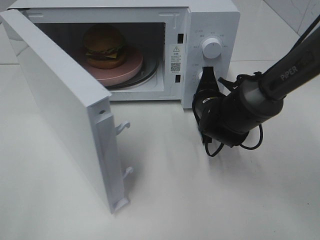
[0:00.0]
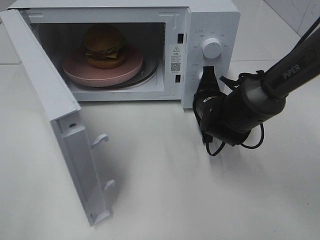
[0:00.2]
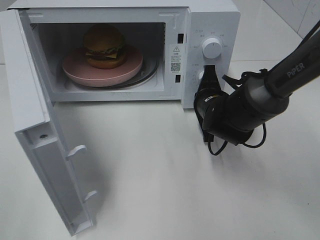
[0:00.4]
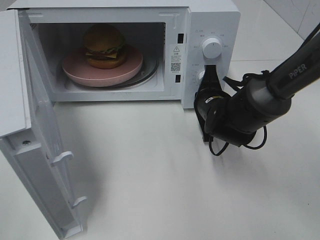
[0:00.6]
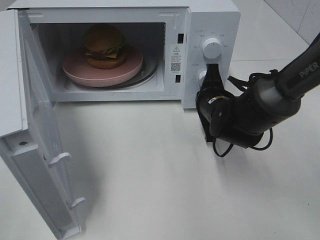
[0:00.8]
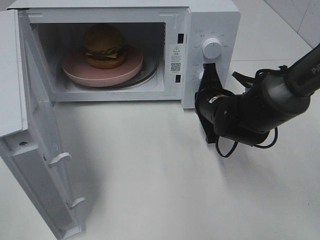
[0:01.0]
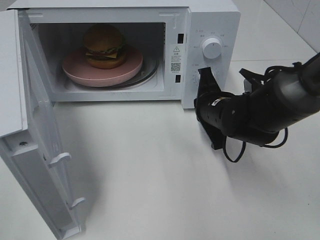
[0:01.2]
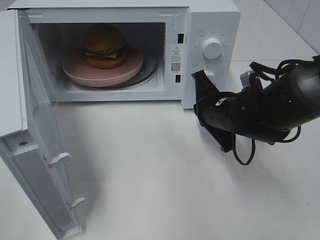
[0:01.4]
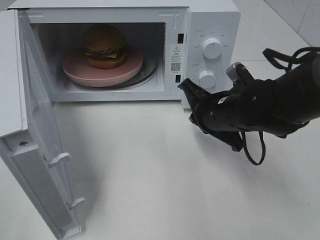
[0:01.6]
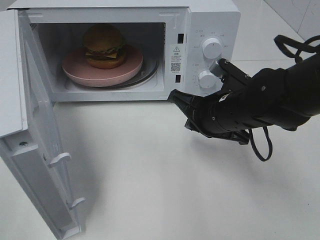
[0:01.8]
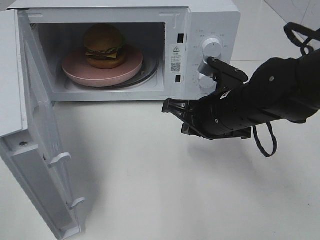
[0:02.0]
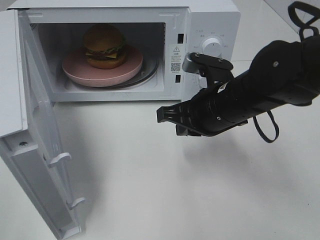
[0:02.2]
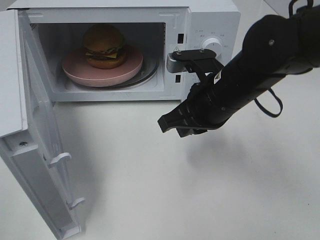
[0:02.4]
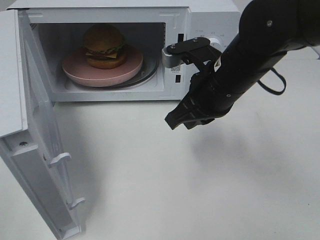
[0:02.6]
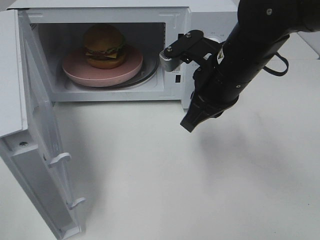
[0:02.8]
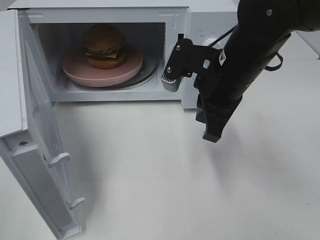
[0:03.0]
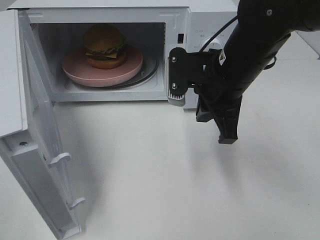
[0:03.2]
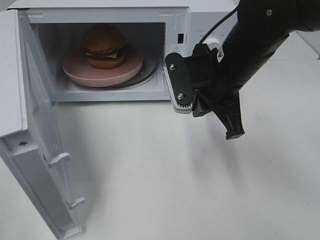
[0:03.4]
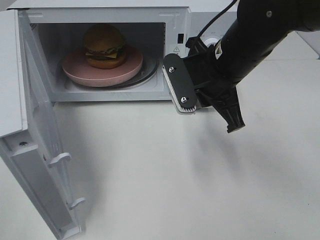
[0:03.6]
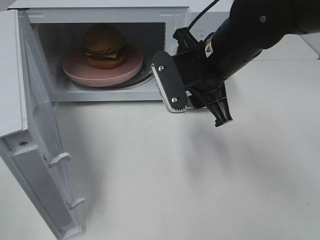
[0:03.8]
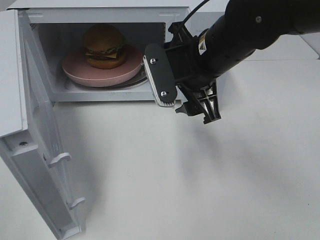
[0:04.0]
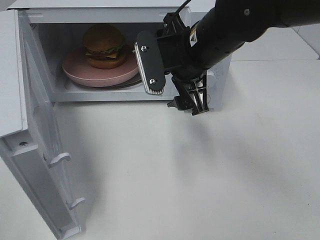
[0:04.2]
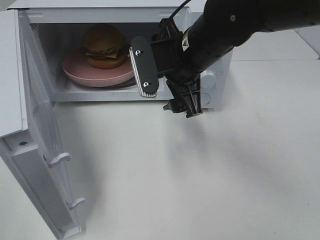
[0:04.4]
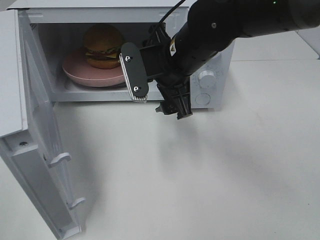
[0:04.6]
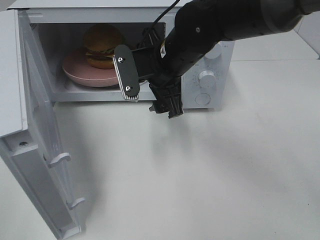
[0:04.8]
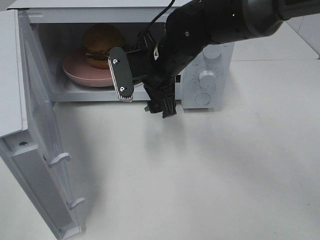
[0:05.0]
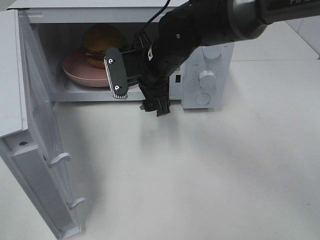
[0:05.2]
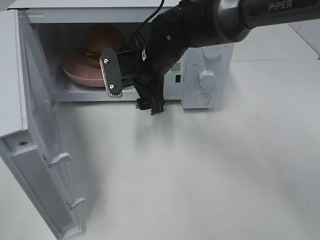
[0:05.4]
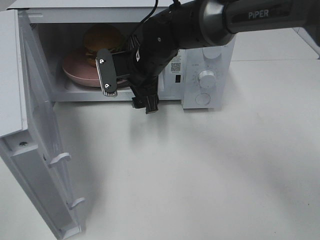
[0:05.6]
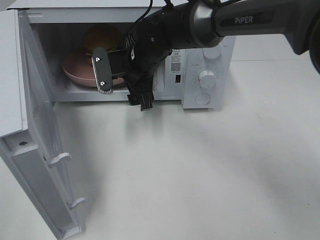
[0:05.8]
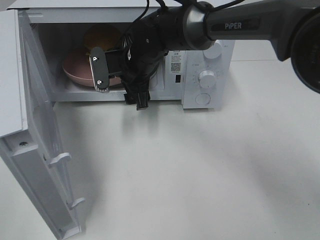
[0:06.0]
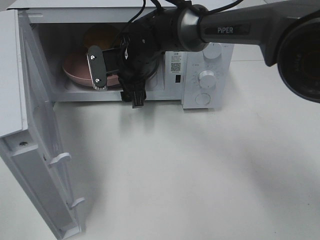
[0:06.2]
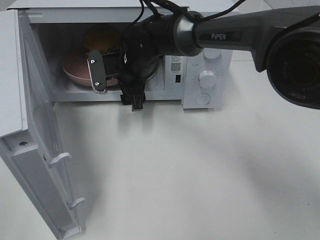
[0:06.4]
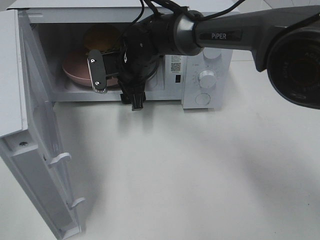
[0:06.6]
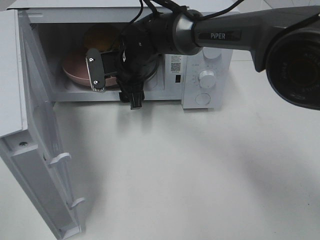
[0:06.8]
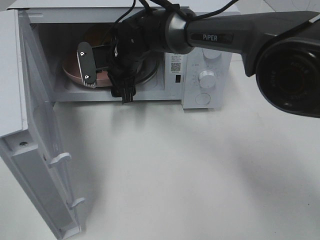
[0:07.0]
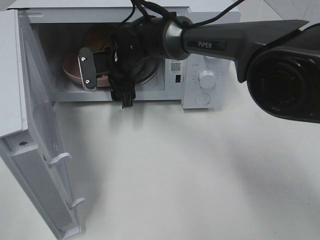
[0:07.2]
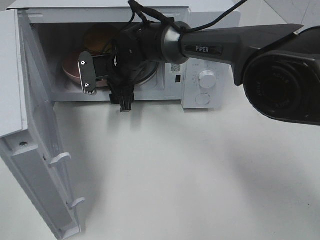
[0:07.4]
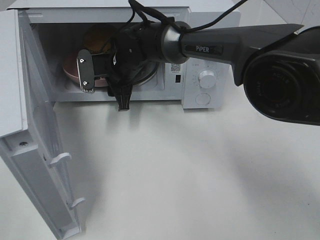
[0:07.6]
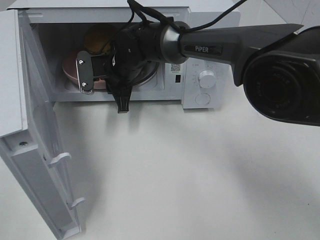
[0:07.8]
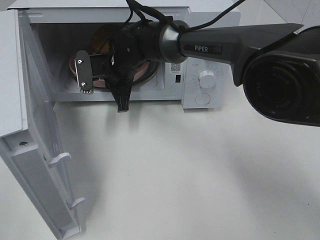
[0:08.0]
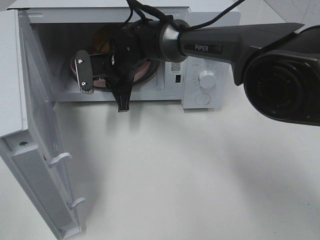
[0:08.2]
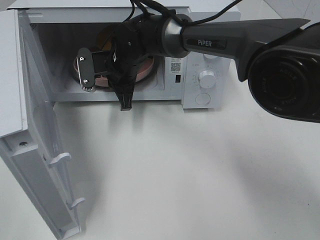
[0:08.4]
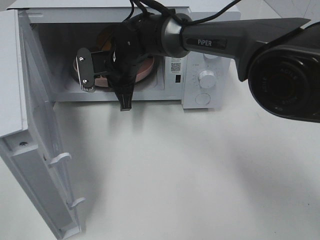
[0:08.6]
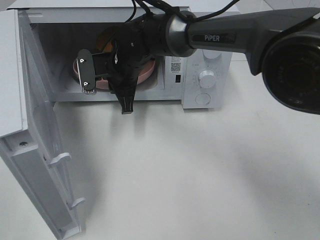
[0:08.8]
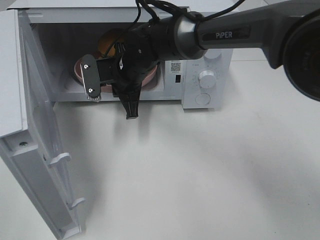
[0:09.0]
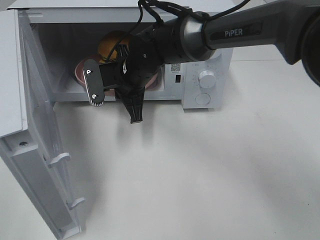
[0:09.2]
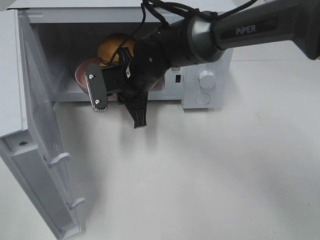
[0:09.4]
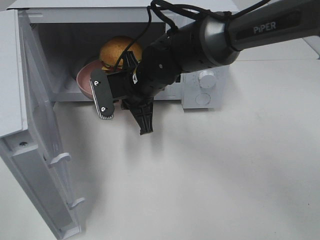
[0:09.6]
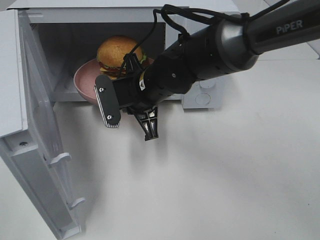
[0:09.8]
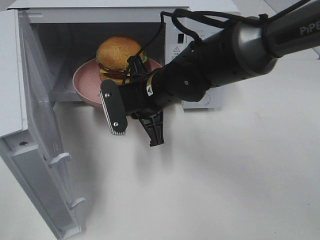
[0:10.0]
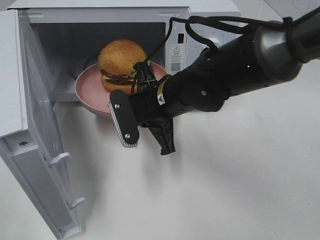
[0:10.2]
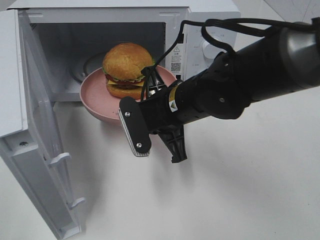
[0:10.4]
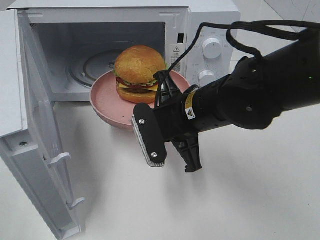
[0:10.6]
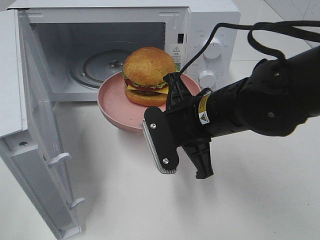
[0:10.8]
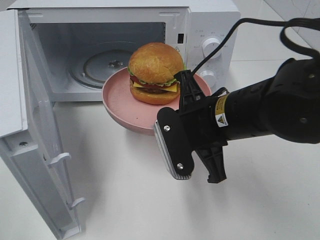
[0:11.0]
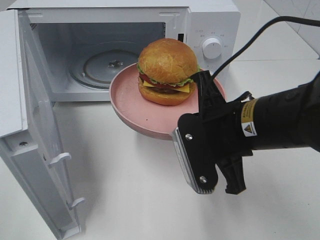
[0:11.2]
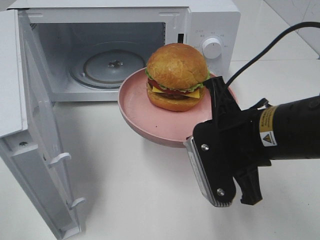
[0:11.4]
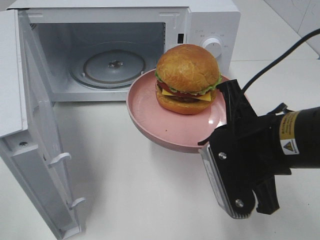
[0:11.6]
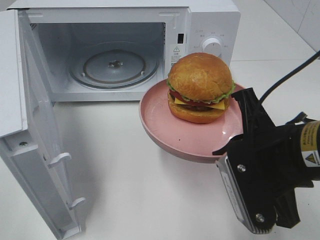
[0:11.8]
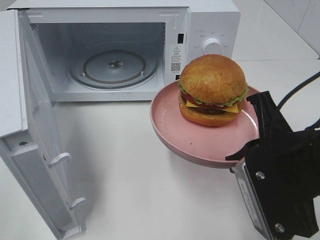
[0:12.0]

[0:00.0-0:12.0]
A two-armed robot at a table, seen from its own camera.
Task of the whole recording: Heat the burger.
Step, 0:01.2 to 0:08.0: Right hand: grab the plate with the hamburger.
0:00.0 to 0:01.6: The right gripper shifts approximately 5 cm backward.
0:01.6 to 0:03.0: The right gripper heads upward, covering approximately 10 cm.
0:03.0 to 0:04.4: The right gripper shifts approximately 5 cm to the left, and opens up.
0:04.4 to 0:06.0: The right gripper heads forward, to the left and downward, covering roughly 15 cm.
0:06.0 to 0:07.6: The right gripper closes.
0:07.6 to 0:09.0: The right gripper closes up.
0:09.0 to 0:10.4: The right gripper moves backward and to the right, approximately 15 cm.
0:10.4 to 0:12.0: The right gripper moves backward and to the right, about 20 cm.

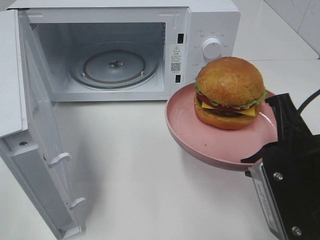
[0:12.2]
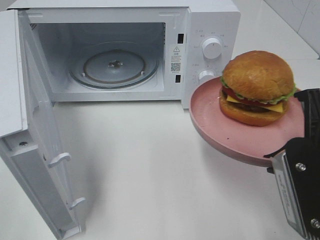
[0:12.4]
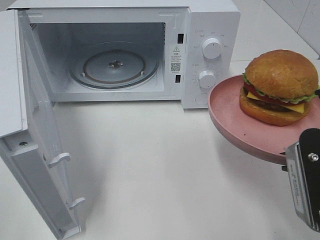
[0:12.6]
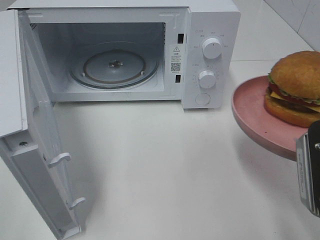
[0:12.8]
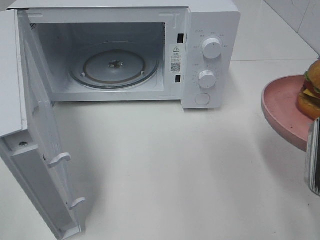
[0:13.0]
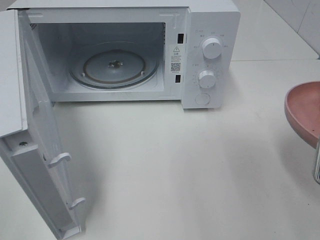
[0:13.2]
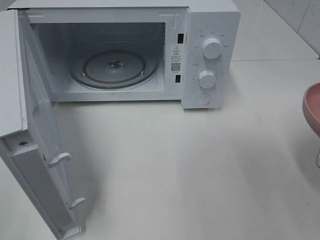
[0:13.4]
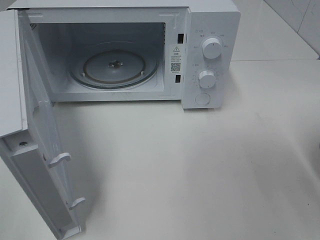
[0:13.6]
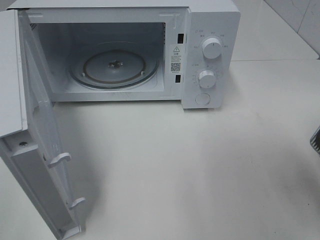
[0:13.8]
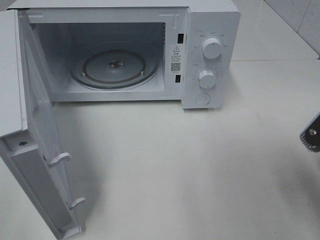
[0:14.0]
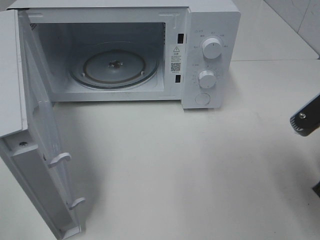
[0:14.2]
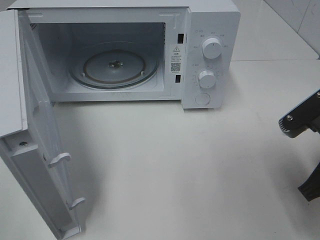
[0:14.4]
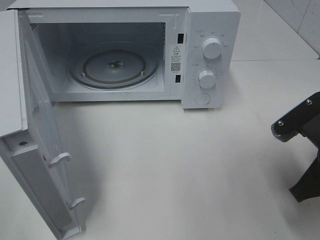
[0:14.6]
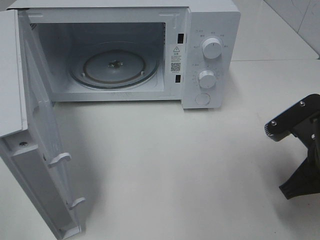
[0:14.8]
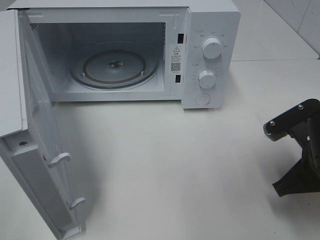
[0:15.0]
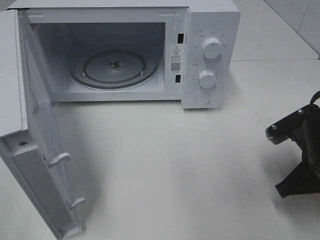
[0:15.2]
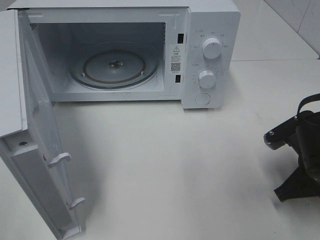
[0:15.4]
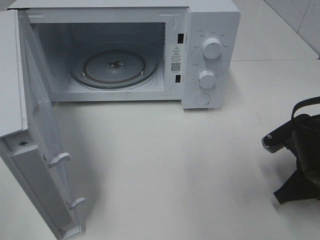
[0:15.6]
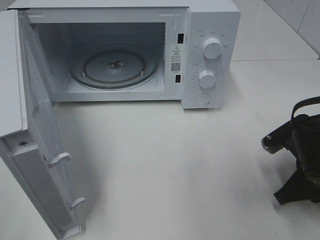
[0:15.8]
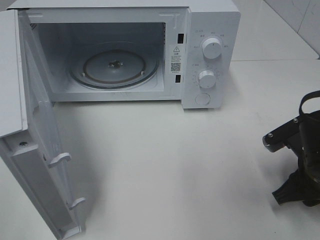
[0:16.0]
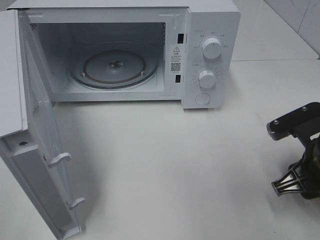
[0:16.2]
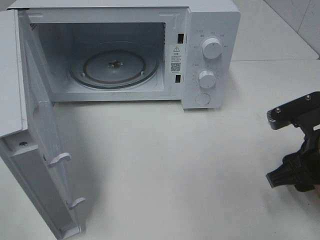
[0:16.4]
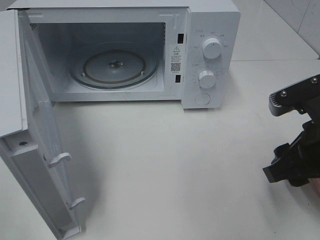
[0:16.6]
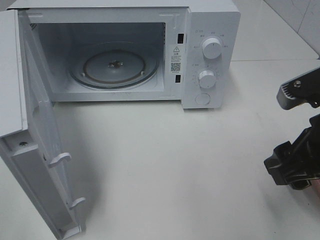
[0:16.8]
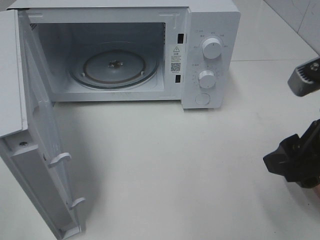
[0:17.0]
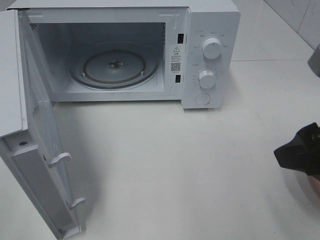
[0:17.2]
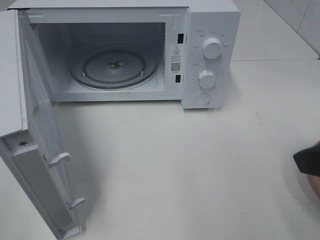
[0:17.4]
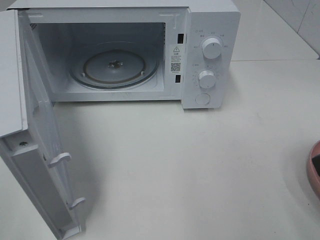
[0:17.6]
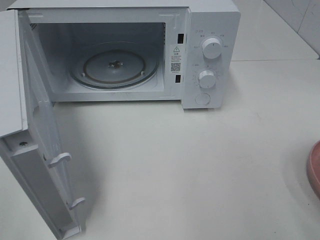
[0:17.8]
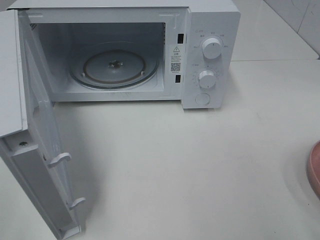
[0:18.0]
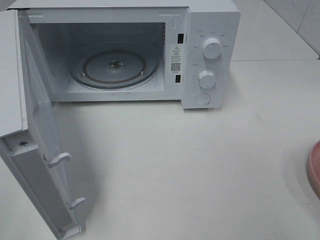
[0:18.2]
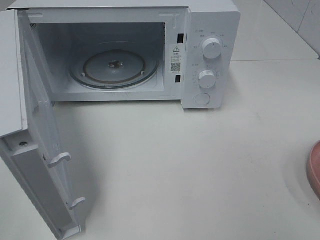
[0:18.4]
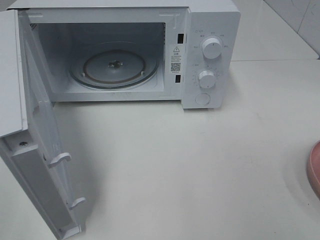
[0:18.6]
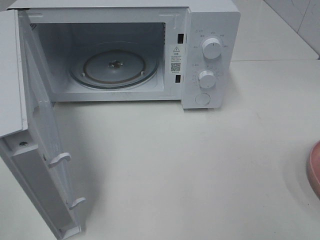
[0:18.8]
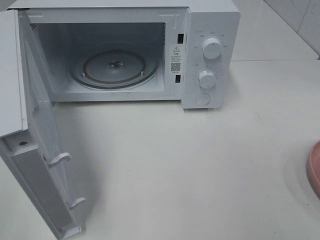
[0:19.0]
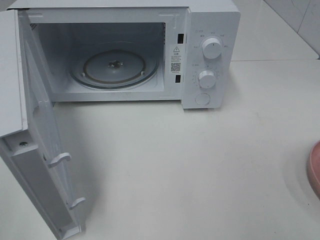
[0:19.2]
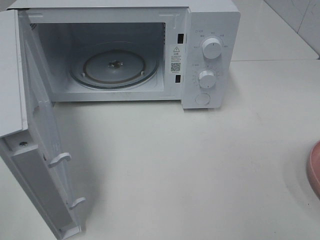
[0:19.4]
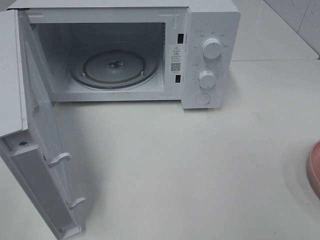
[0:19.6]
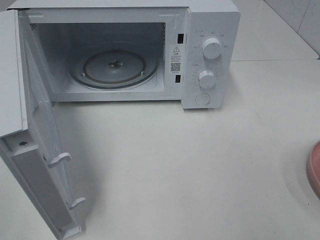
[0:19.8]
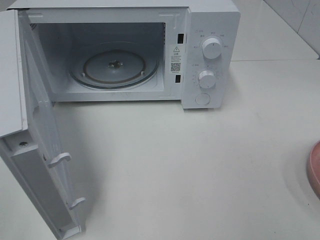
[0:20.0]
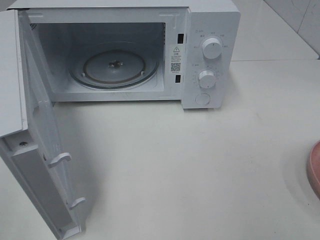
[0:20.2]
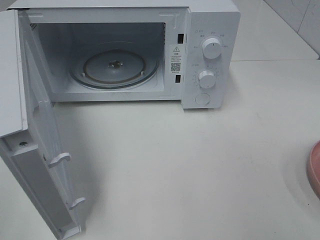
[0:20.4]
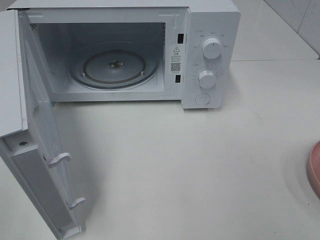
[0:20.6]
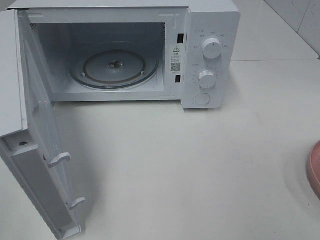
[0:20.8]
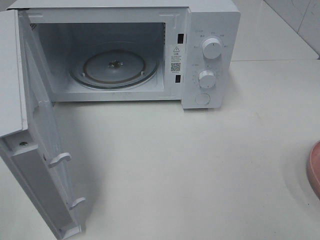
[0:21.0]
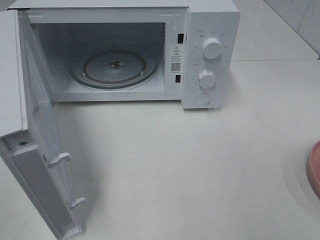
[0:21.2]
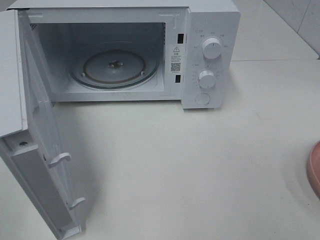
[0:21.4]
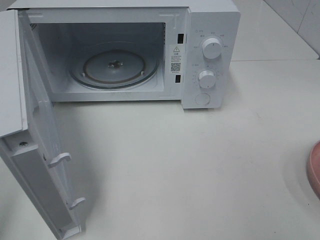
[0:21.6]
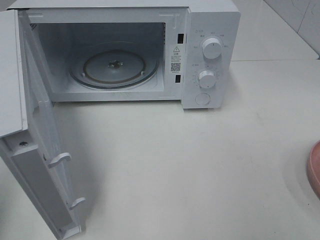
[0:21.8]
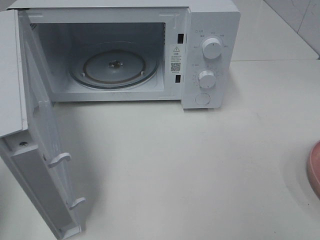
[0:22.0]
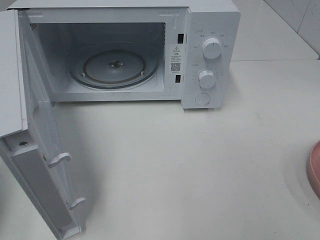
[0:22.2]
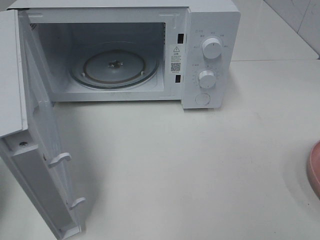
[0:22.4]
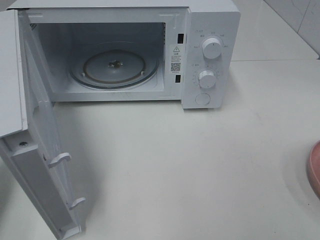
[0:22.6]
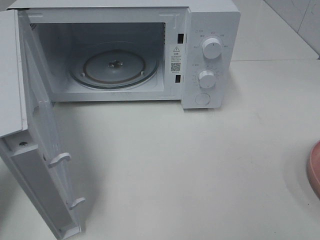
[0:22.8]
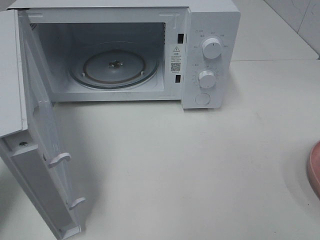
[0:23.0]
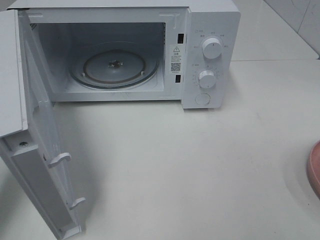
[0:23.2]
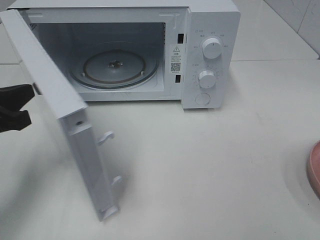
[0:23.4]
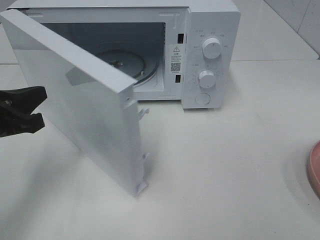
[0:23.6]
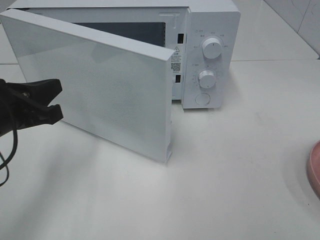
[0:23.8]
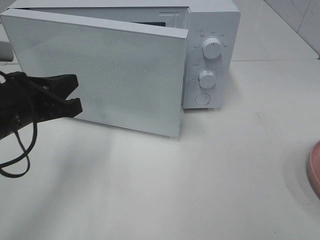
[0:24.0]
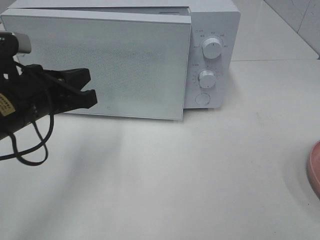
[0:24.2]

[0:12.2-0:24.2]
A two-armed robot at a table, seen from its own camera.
Task of the whole recording: Heat the burger.
Step, 0:12.2 to 0:15.8: Right hand: place the plate on the table.
0:12.2 to 0:13.8: The right gripper goes roughly 5 cm to the right.
0:13.8 to 0:15.2: The right gripper is displaced downward and forward by approximately 10 cm.
0:15.2 to 0:16.6: The right gripper heads upward, covering roughly 5 cm, and opens.
0:16.6 to 0:18.2: The right gripper travels backward, upward and to the right by about 15 cm.
0:21.2 to 0:22.6: The left gripper travels forward by roughly 20 cm, and closes up.
0:22.6 to 0:24.2: The left gripper travels to the right by approximately 15 cm.
